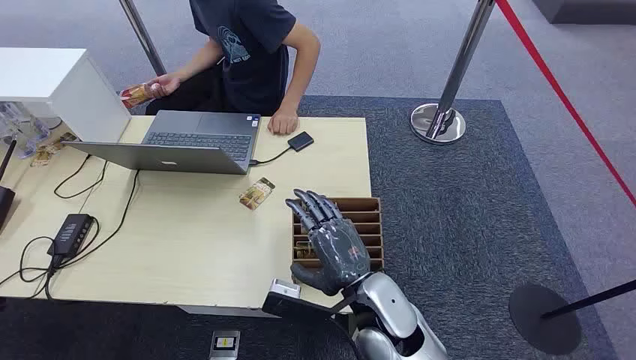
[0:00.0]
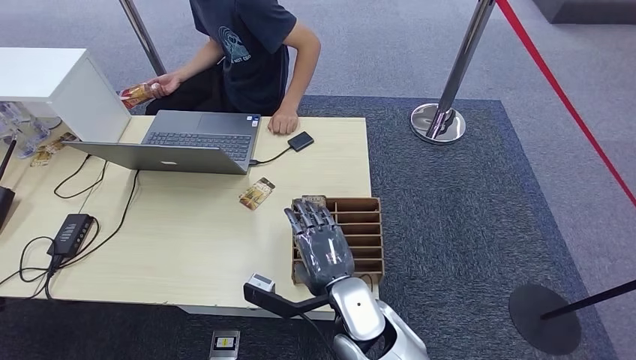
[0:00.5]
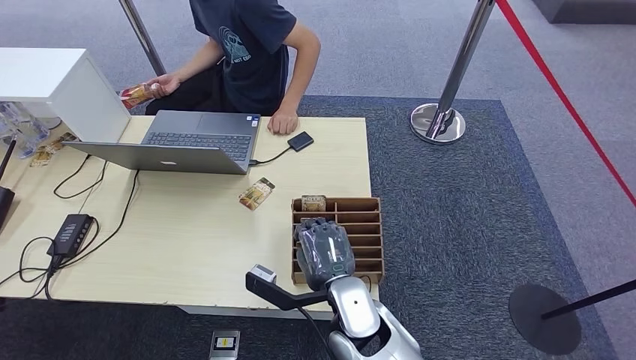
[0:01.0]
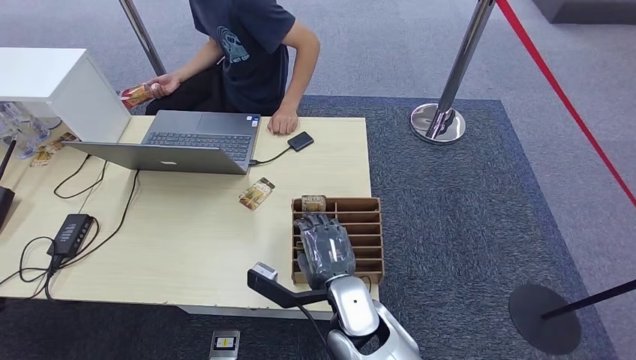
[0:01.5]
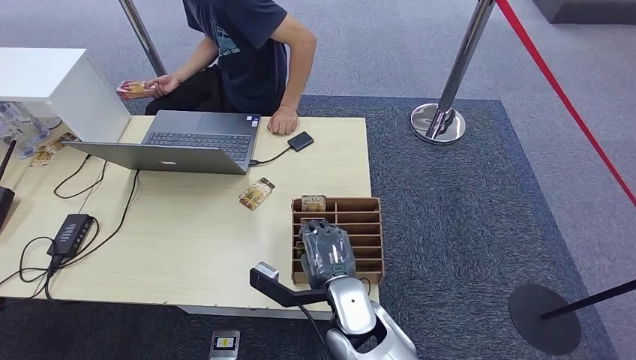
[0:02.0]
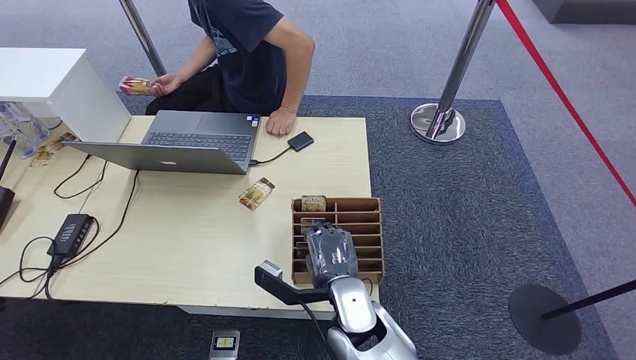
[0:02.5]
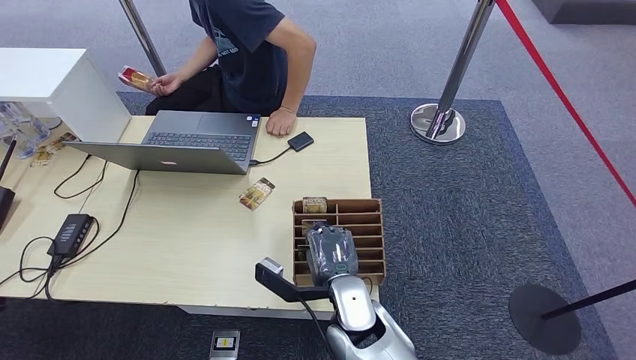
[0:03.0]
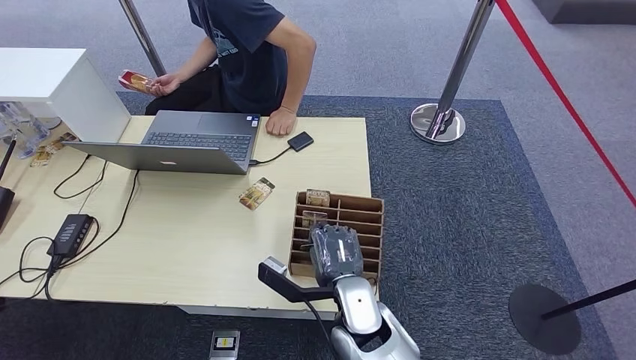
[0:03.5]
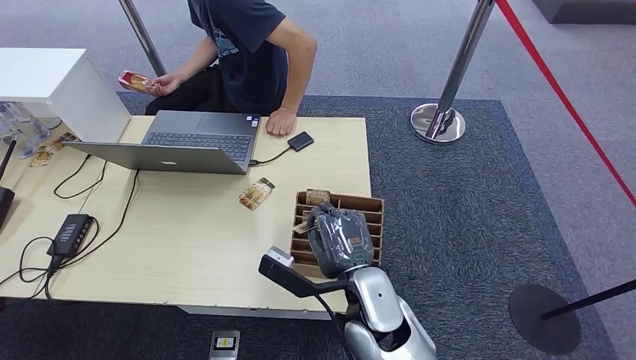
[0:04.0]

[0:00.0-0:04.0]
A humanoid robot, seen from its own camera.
Step, 0:00.0 to 0:04.0: Pick up the key card from the card box.
0:02.0 to 0:04.0: The hands stay close to where they were, moving slightly.
